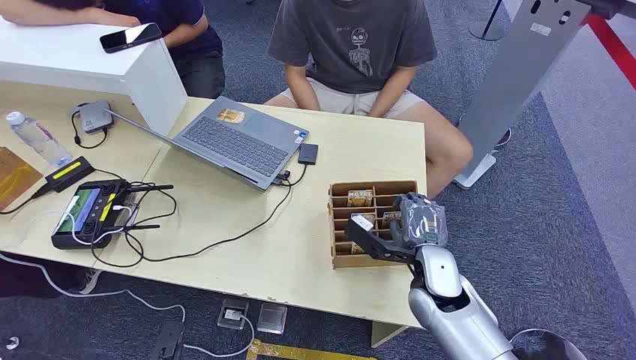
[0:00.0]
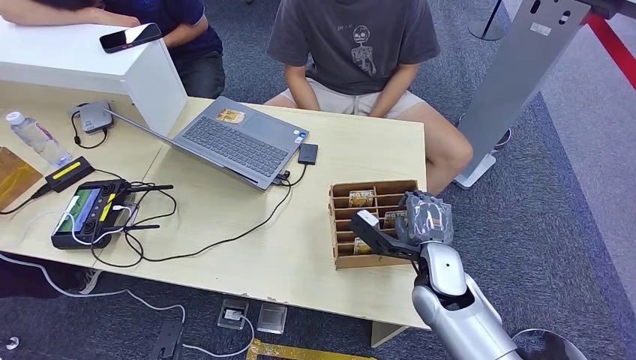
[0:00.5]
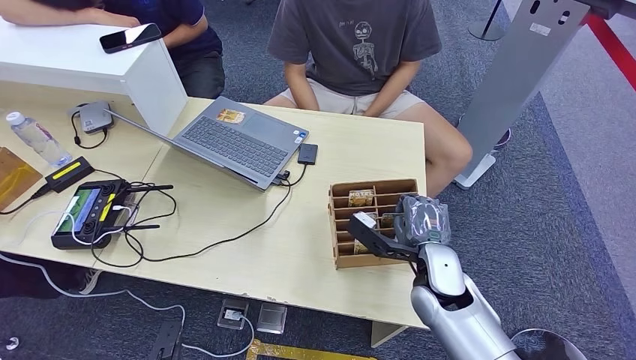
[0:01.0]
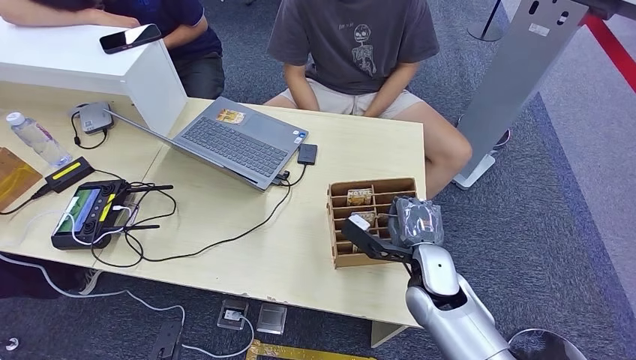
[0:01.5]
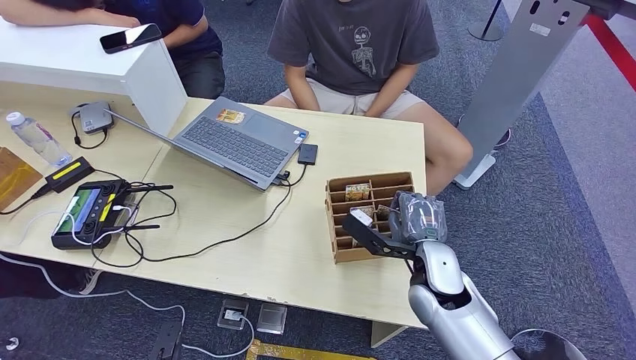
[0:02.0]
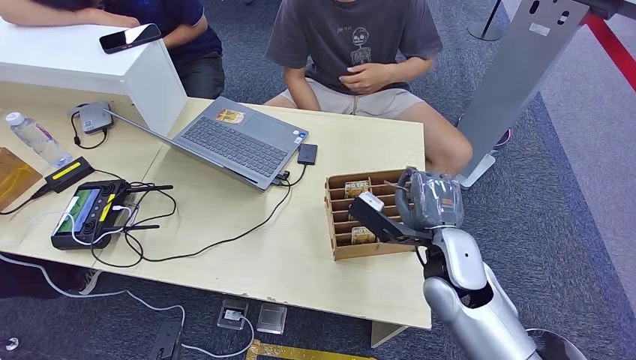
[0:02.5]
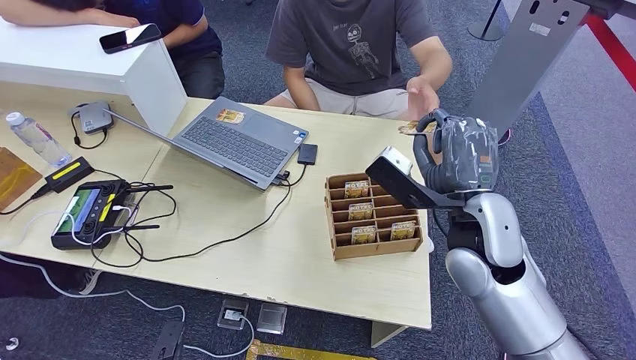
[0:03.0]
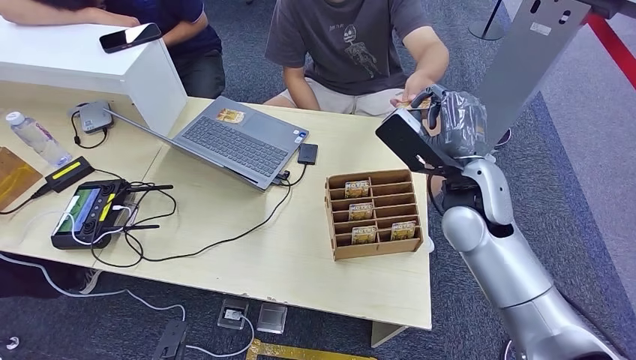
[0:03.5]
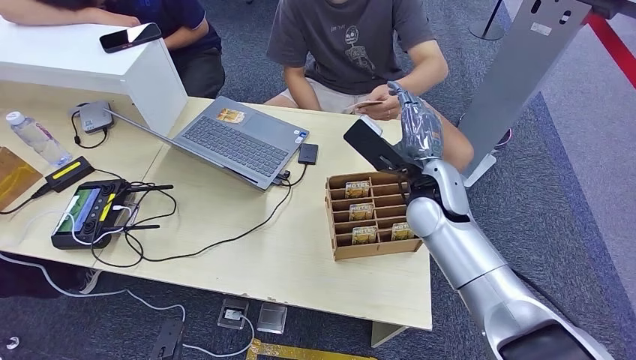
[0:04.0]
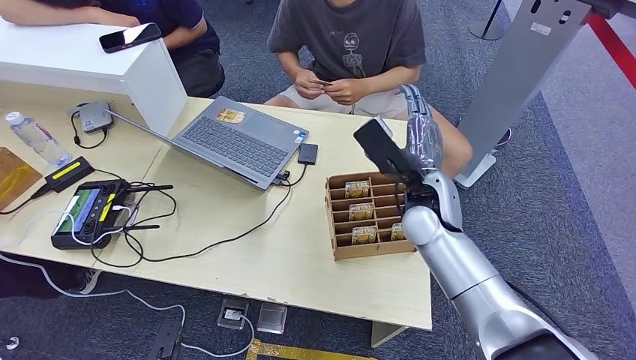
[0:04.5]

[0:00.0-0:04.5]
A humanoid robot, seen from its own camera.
Step, 0:00.0 to 0:02.5: Pick up the key card from the card box.
Step, 0:03.0 to 0:04.5: Hand the key card to the target.
0:02.0 to 0:04.5: The right hand shifts some 10 cm upward and forward.
